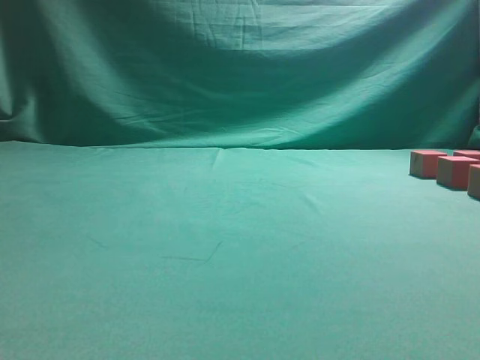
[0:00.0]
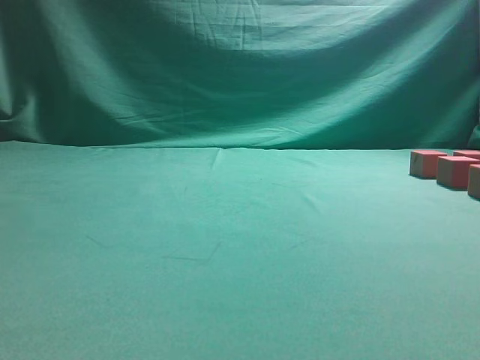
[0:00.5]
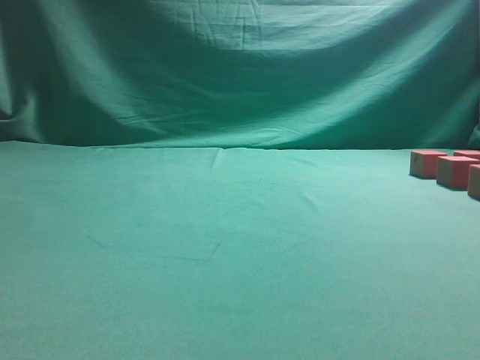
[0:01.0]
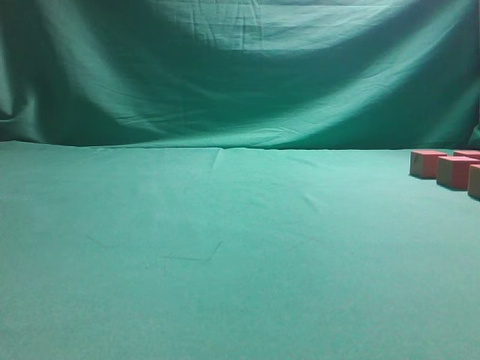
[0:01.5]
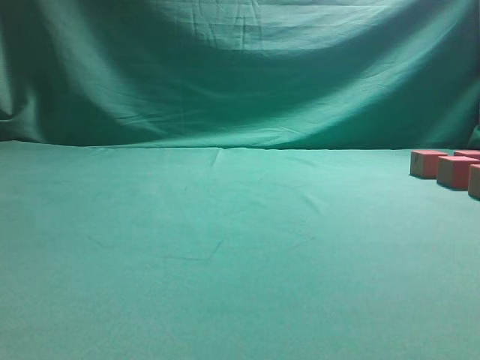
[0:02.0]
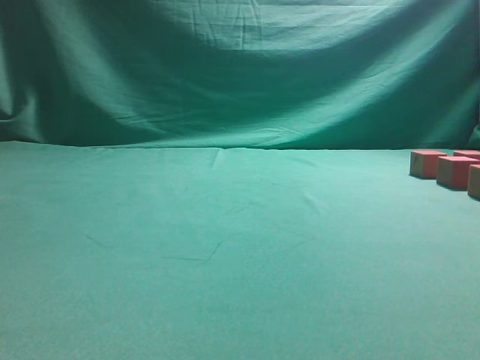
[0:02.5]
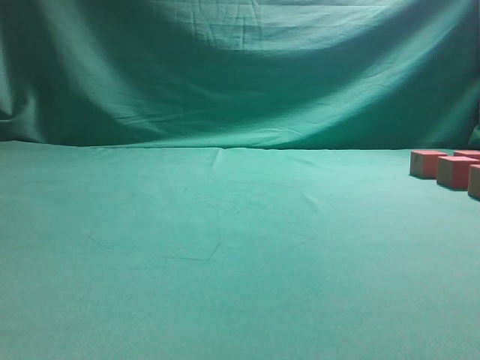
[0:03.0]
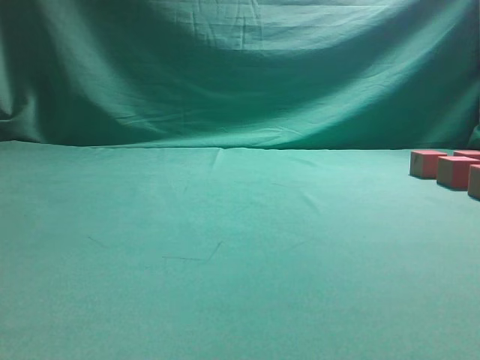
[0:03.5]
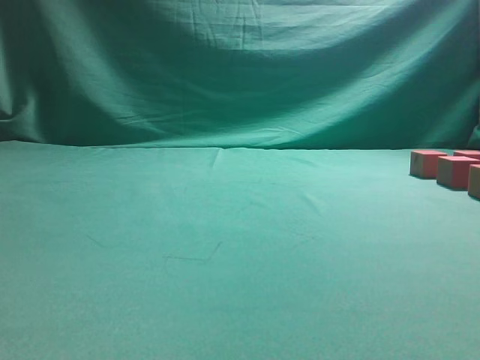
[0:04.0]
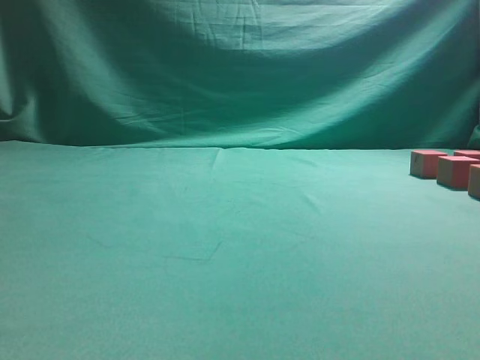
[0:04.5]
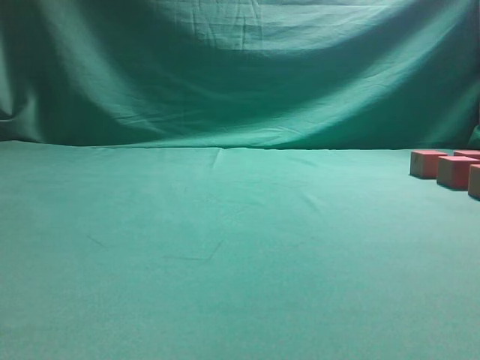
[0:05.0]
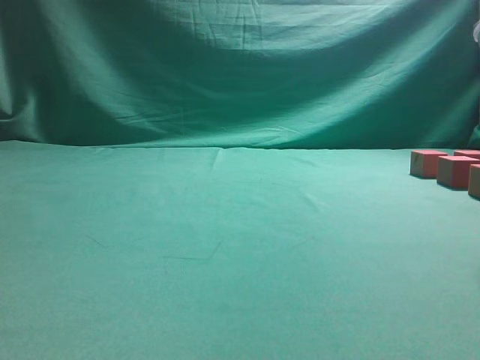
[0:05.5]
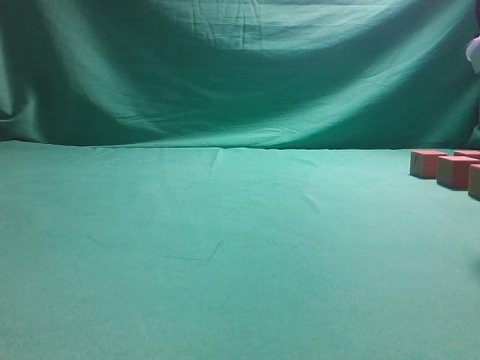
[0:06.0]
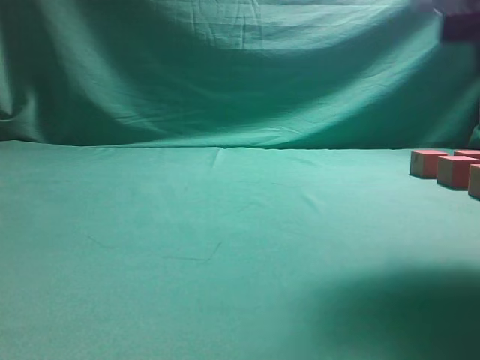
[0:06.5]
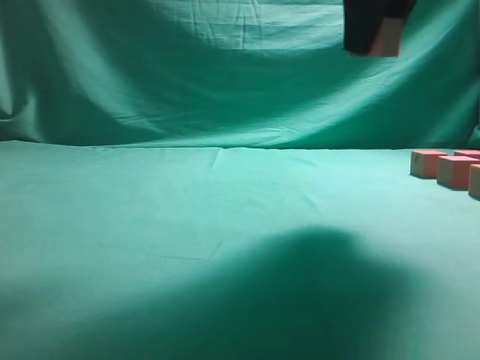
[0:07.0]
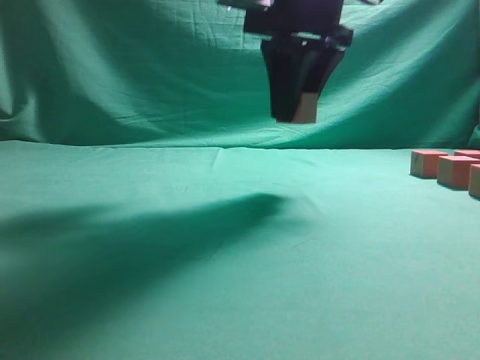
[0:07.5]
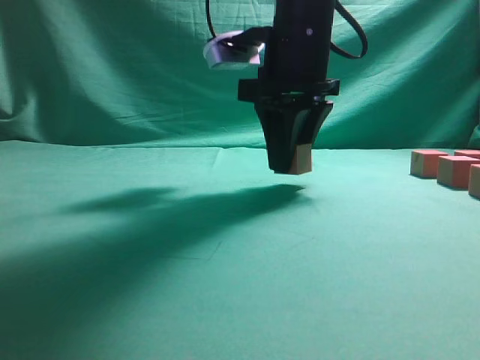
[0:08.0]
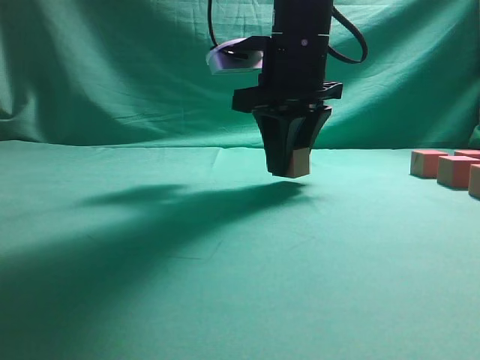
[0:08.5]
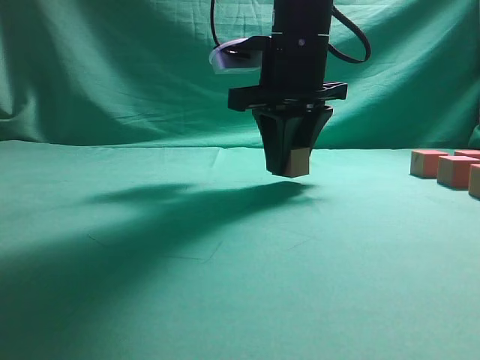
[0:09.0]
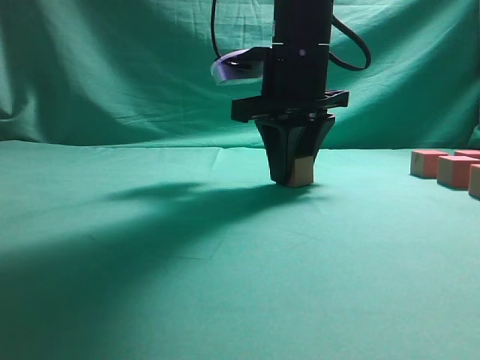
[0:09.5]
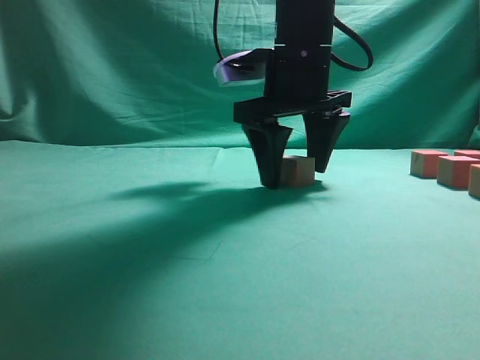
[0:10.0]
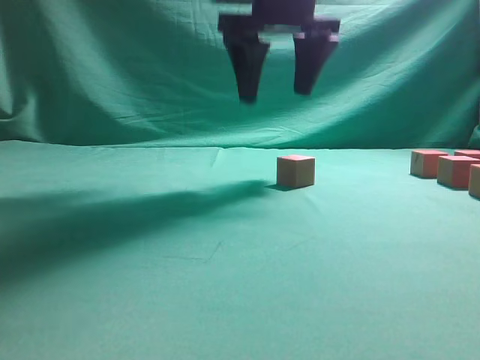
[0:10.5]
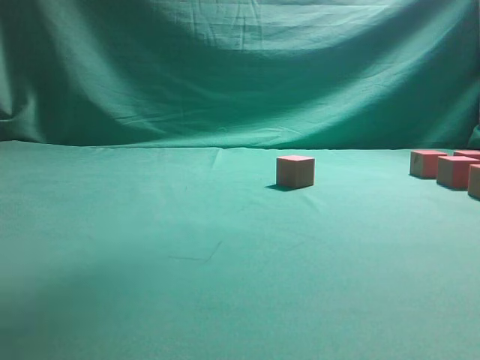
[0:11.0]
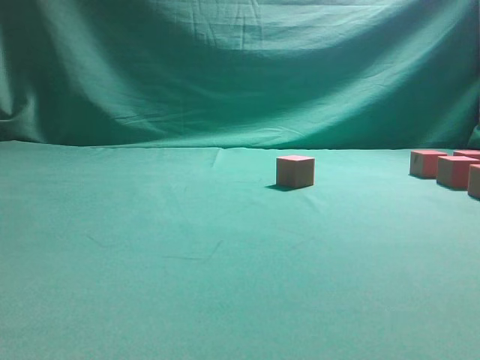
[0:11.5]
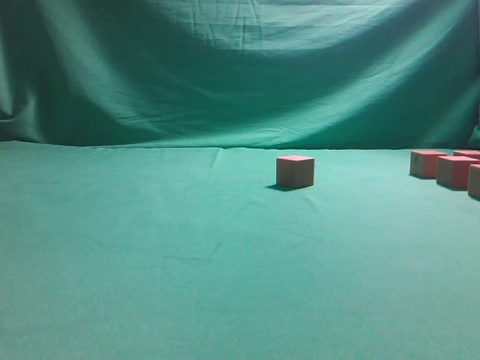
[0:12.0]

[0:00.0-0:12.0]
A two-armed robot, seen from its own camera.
Task of the whole recording: pick up the multiple cubes in two columns one by one and place them in another position on the table.
Step, 6.5 to 10.5 s: Place the block at the correct position to assemble the letter S.
6.0 to 8.0 s: The right gripper travels to the left and forward by roughly 25 cm.
8.0 to 10.0 s: The right gripper opens its fingers.
10.0 to 12.0 s: The right gripper is displaced to the right and backward by roughly 30 cm, and goes upward and returns, approximately 25 cm each way.

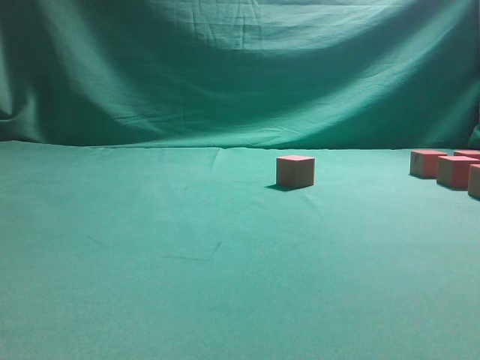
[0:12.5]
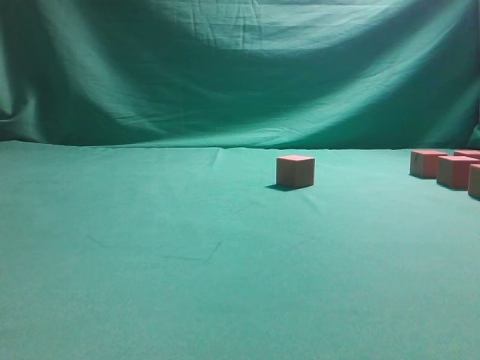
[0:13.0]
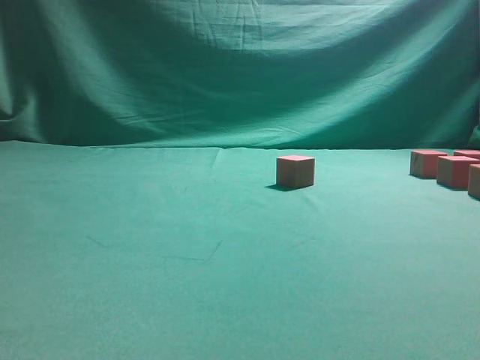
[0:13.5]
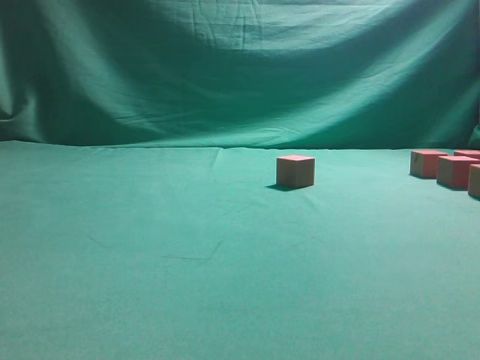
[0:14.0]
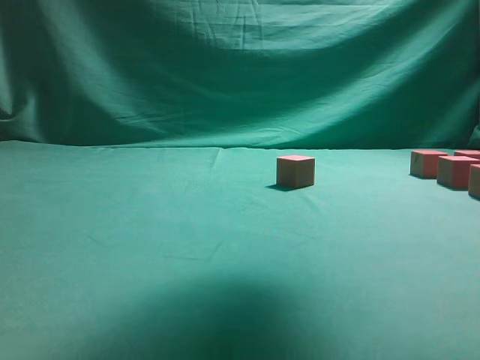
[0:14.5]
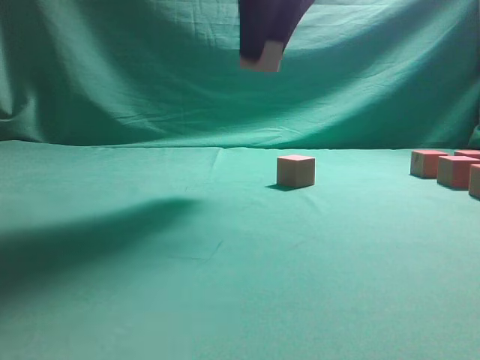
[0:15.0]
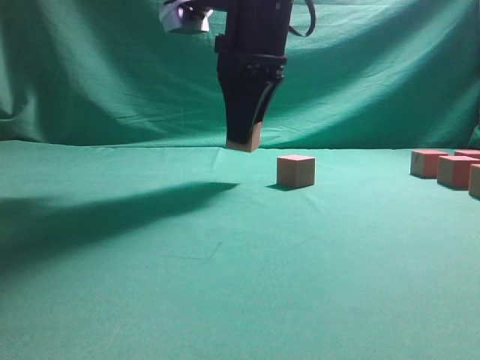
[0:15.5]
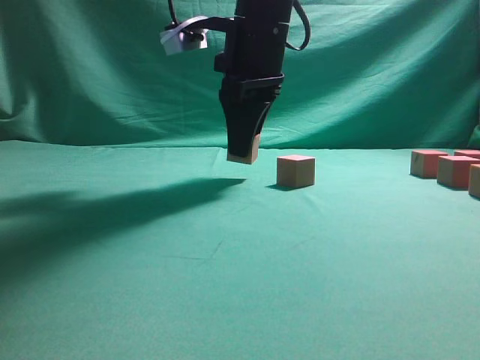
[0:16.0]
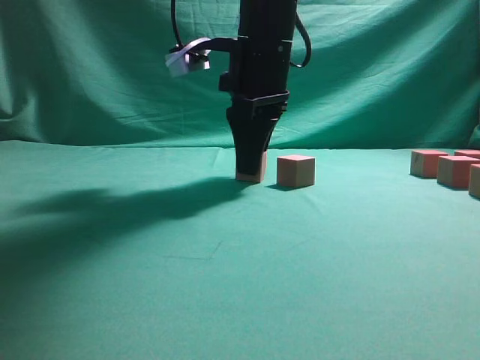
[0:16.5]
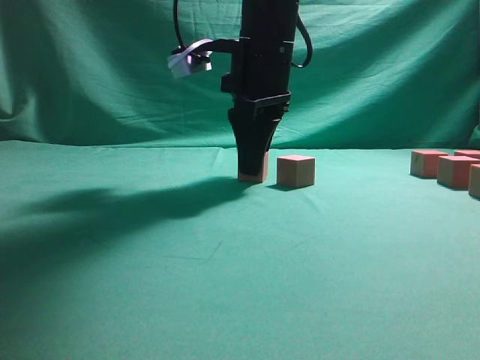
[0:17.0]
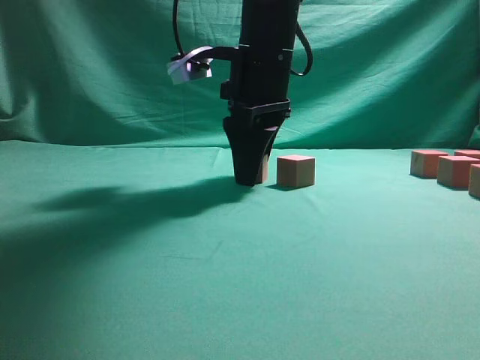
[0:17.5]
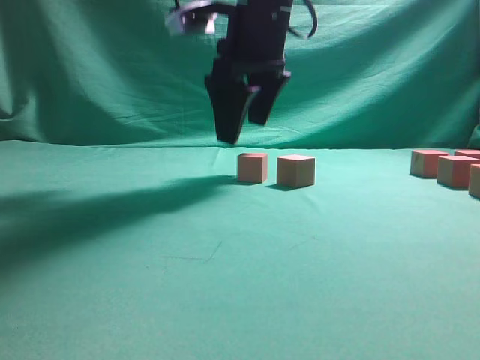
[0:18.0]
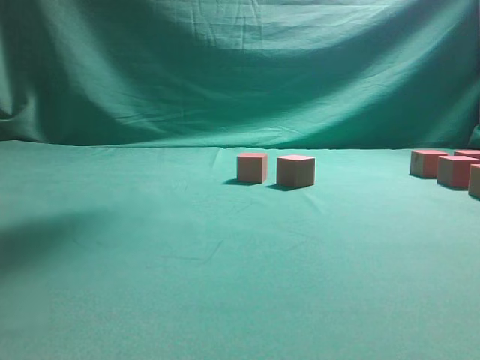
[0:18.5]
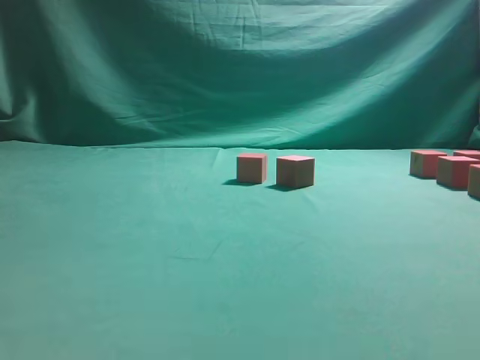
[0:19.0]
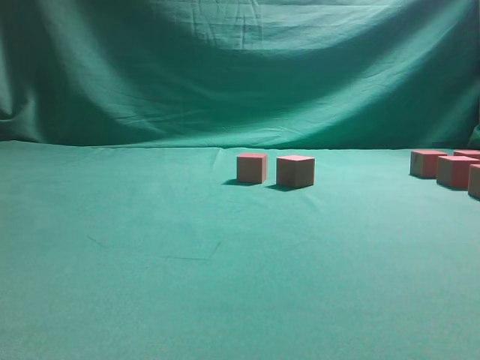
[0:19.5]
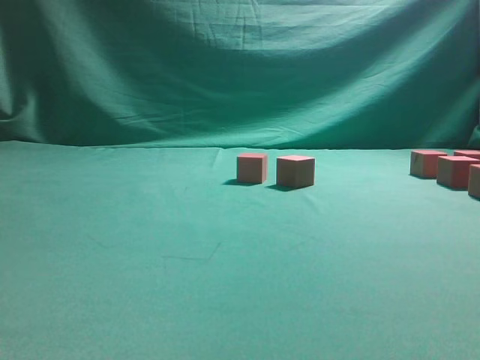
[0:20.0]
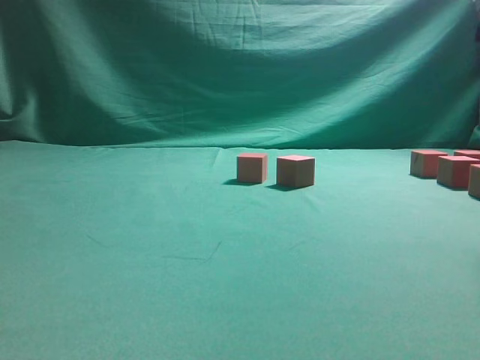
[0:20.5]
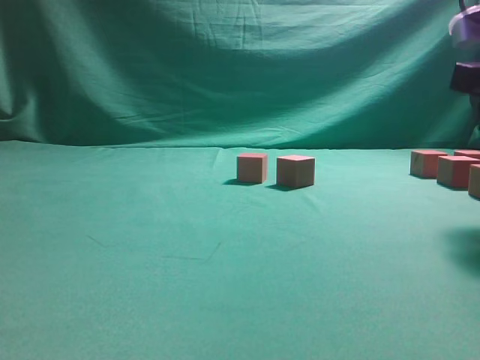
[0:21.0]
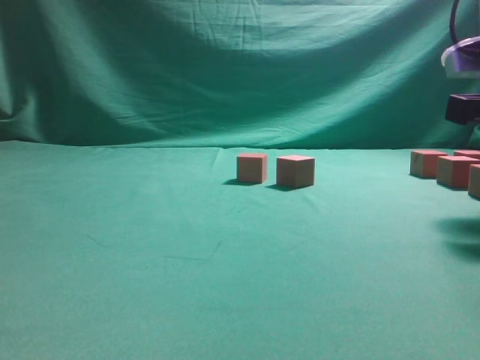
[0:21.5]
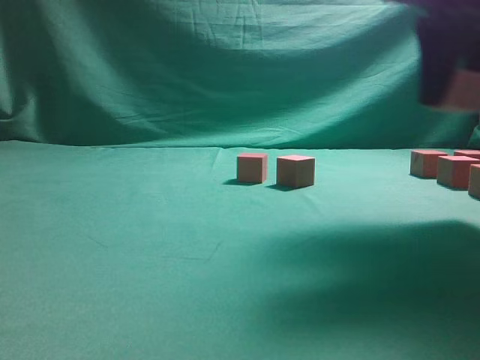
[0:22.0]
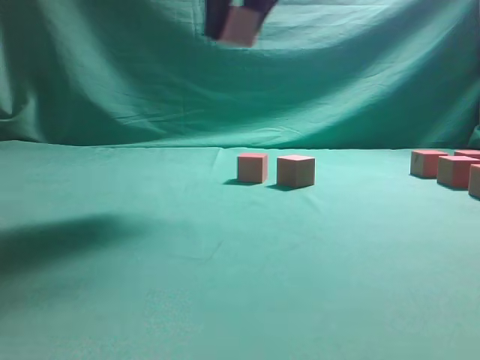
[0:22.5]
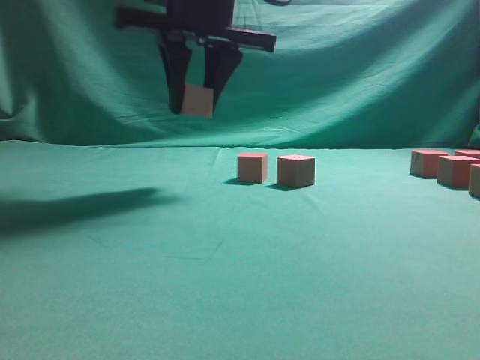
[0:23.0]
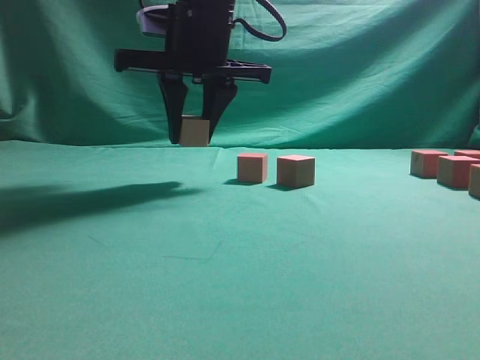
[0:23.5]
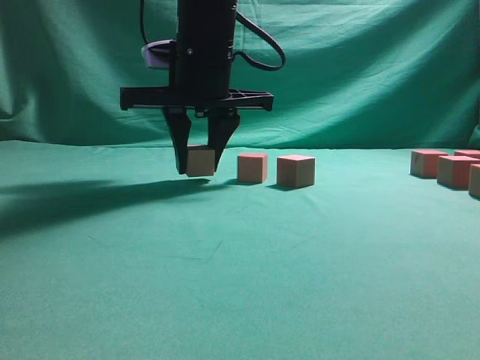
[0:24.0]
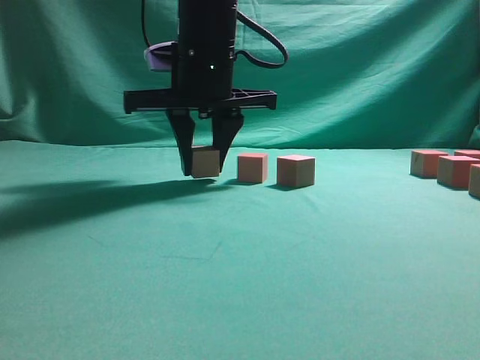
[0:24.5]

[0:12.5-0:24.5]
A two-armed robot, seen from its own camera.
Task of the whole recording: pick up the multiple cubes in two columns one by one and place them in another position on the table.
Step, 14.0 to 18.0 s: Place the block at the correct position to assemble the letter S.
Step, 18.5 to 21.5 s: Pick up the block on the table.
12.5 to 14.5 s: The right gripper moves upward and to the left, roughly 20 cm, and closes its fingers.
14.5 to 16.5 s: The right gripper goes some 25 cm downward, to the left and forward.
16.5 to 18.5 s: The right gripper moves upward, some 20 cm, and opens up.
20.5 to 22.5 s: The right gripper goes approximately 25 cm to the left and upward, and closes up.
22.5 to 24.5 s: The right gripper goes some 15 cm downward, to the left and forward.

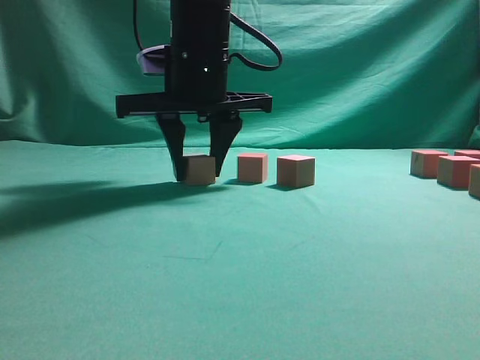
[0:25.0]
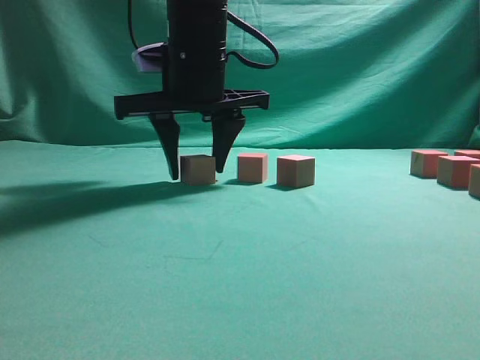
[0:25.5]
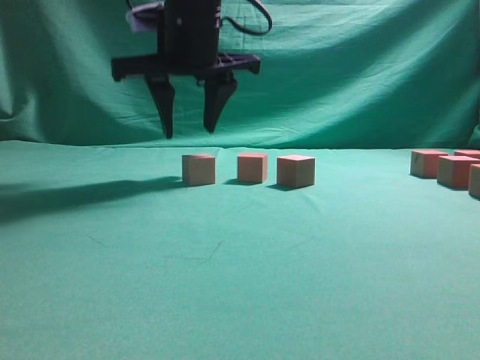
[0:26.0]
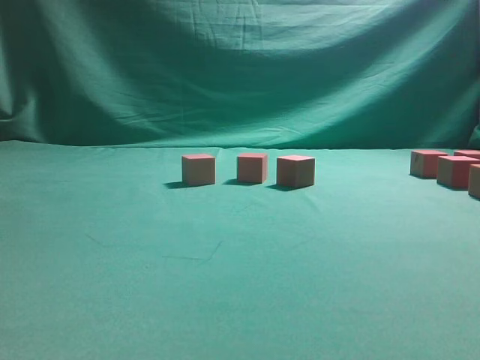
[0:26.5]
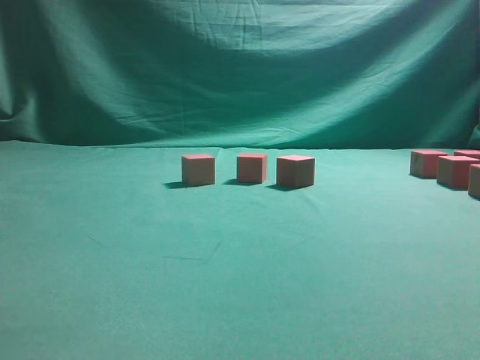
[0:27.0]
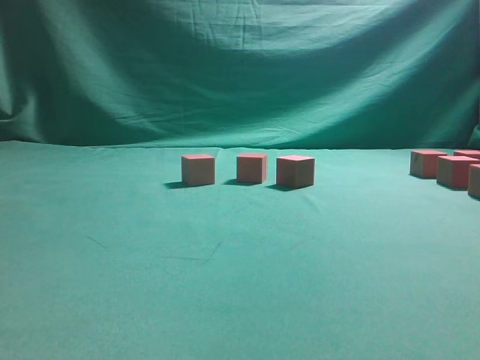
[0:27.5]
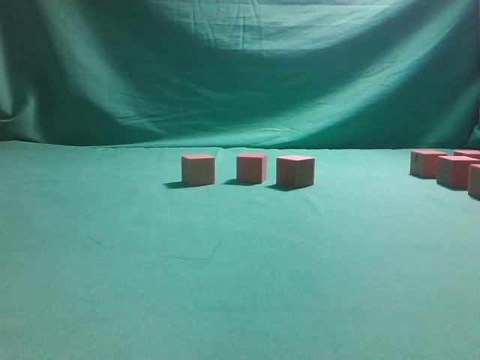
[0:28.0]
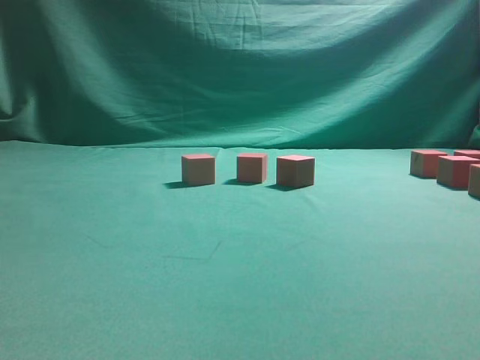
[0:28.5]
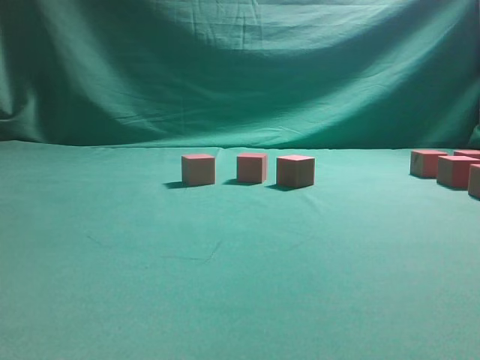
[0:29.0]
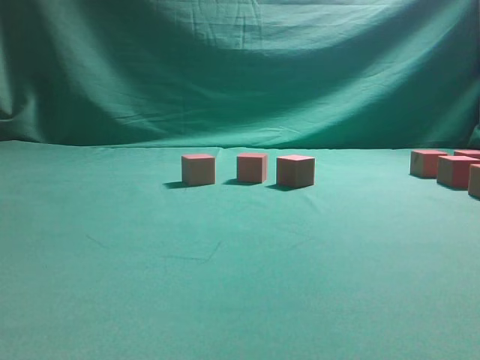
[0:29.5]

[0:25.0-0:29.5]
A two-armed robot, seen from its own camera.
Task of the whole recording: pick up the multiple cubes in two columns one by one and place them in another position on the table.
25.0 to 27.0 s: The right gripper is displaced upward, backward and to the right by roughly 25 cm.
